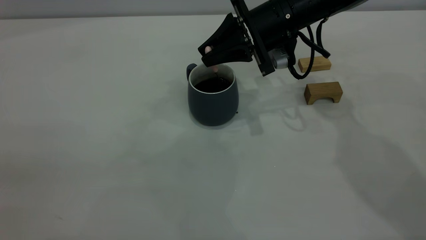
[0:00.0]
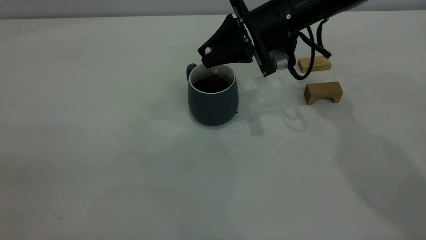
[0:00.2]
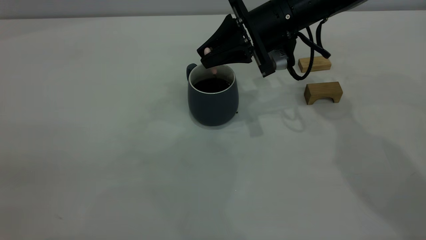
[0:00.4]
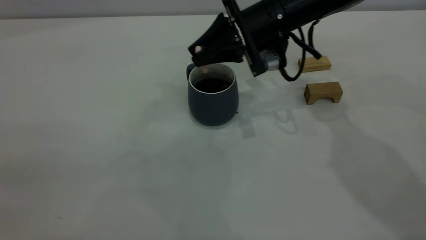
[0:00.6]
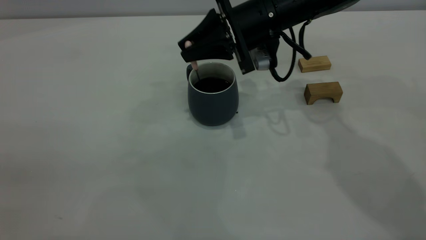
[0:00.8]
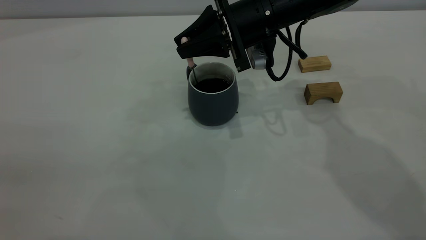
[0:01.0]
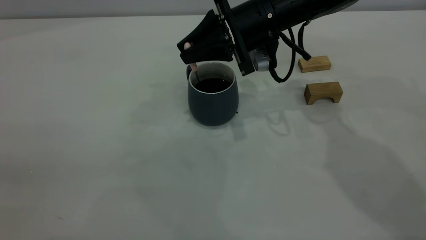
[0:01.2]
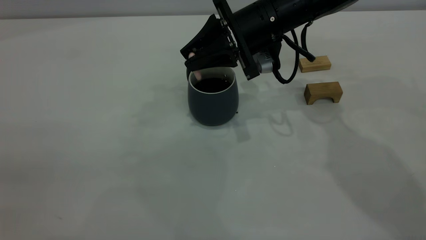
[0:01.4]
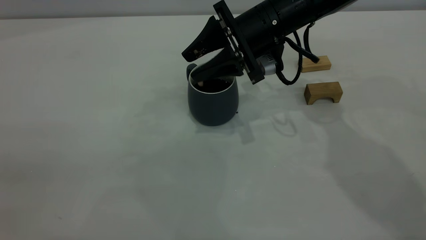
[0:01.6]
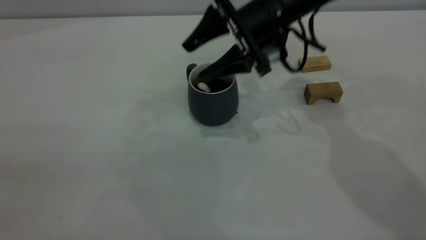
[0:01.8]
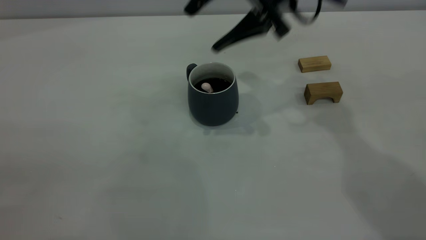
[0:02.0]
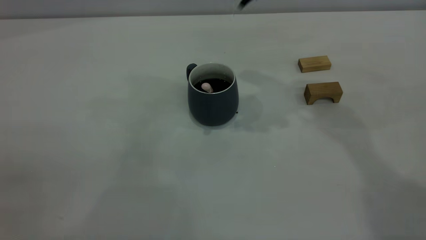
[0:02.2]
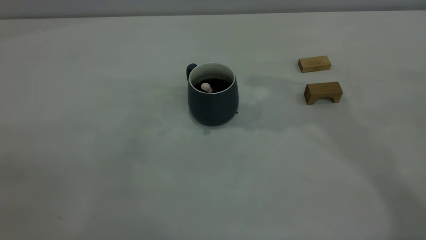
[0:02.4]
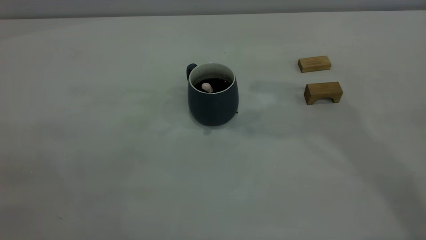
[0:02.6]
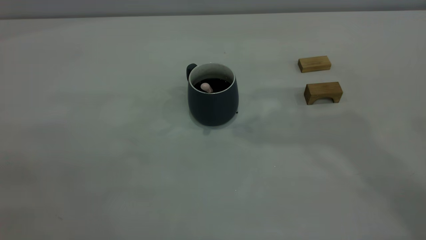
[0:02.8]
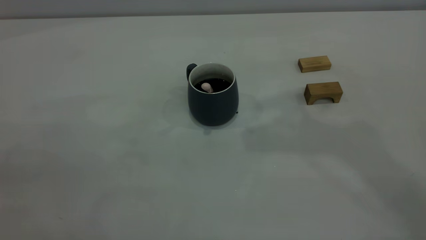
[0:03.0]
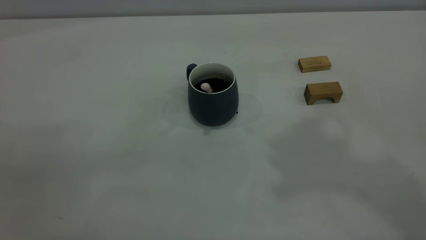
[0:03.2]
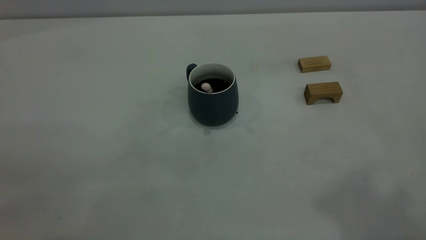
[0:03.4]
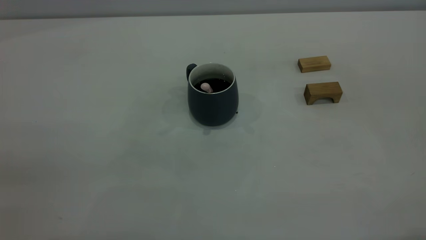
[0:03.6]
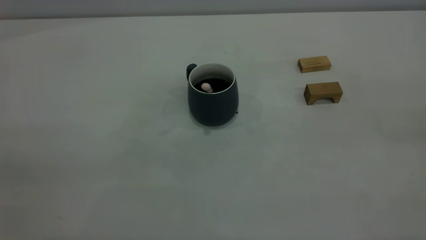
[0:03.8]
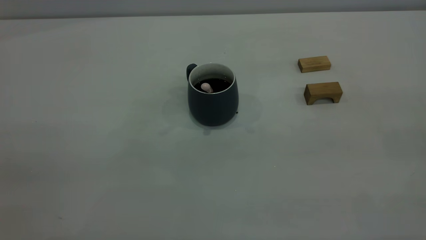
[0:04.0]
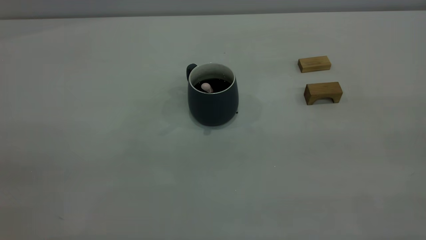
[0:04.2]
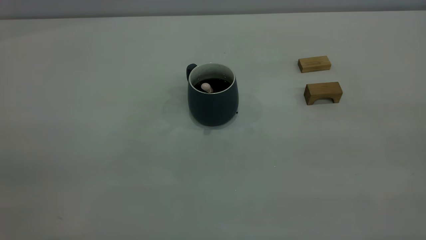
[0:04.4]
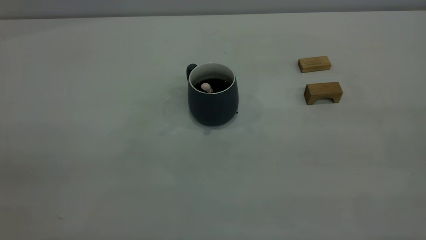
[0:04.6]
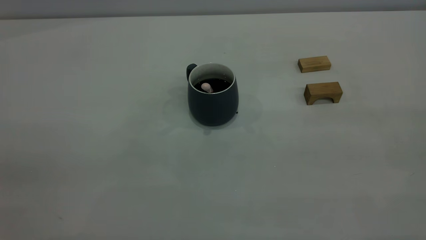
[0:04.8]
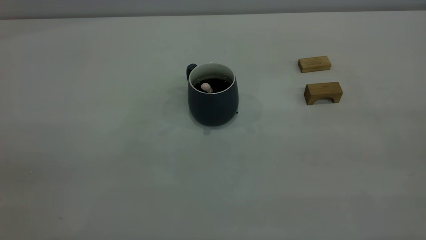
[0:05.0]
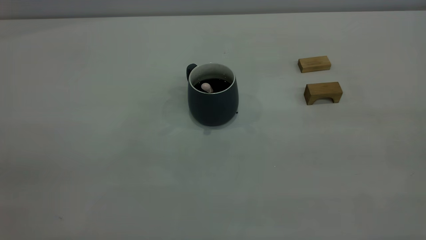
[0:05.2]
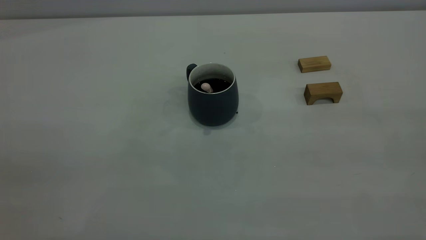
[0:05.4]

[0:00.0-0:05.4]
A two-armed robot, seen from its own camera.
0:00.0 to 0:01.4: The grippers stay close to where they were, moving slightly.
0:01.4 to 0:02.8: The right gripper goes about 35 cm upward, and opens, then closes again.

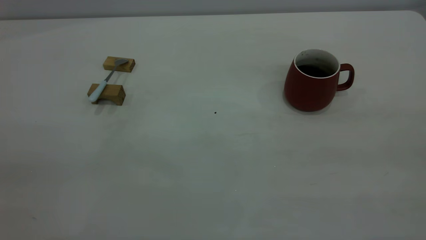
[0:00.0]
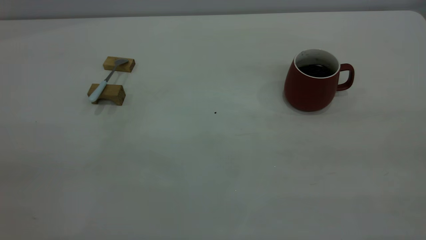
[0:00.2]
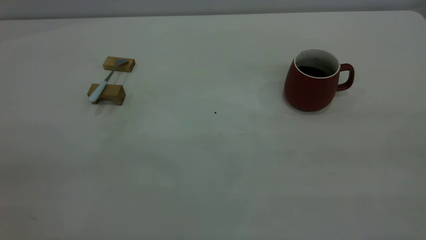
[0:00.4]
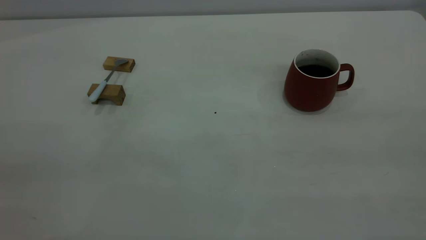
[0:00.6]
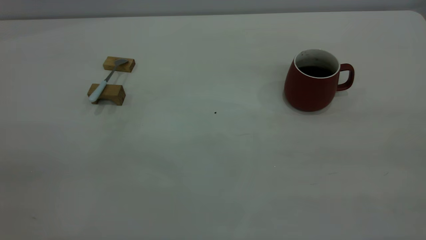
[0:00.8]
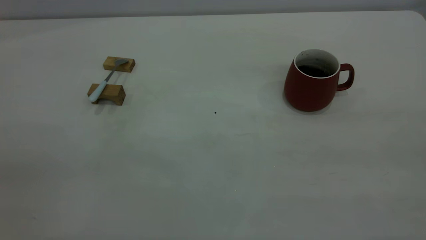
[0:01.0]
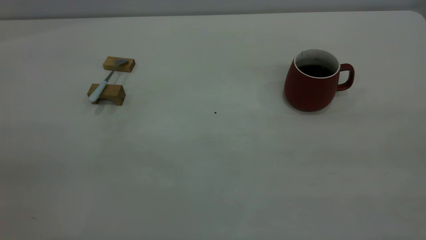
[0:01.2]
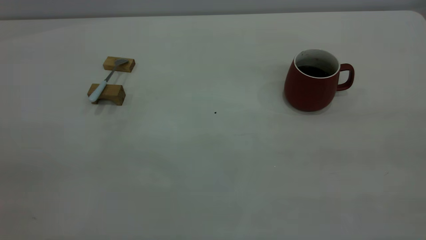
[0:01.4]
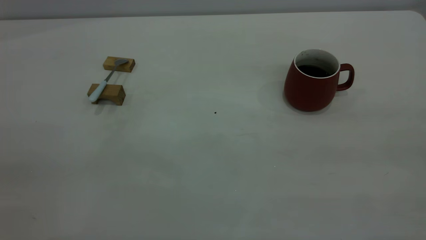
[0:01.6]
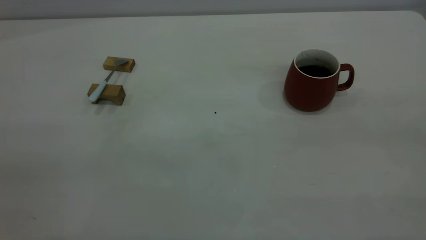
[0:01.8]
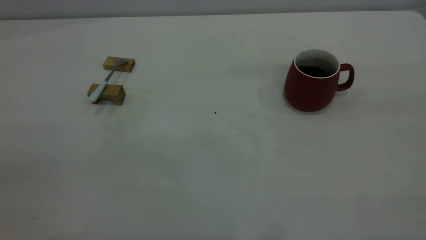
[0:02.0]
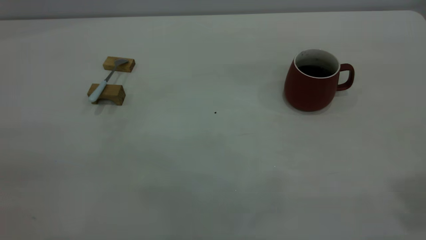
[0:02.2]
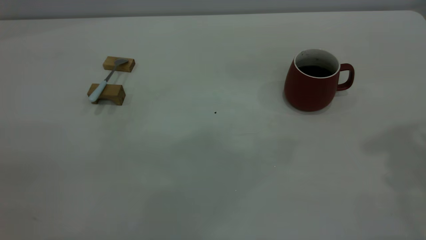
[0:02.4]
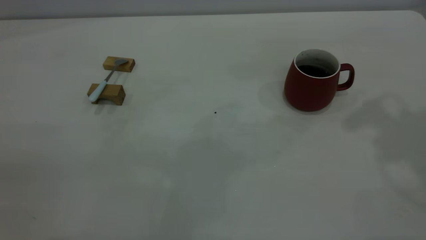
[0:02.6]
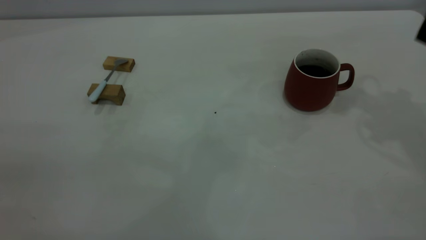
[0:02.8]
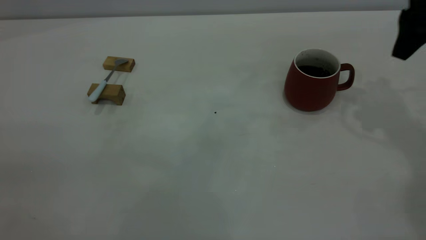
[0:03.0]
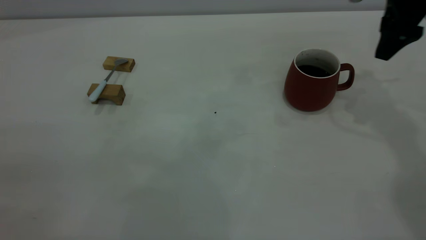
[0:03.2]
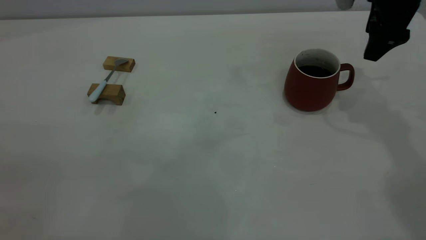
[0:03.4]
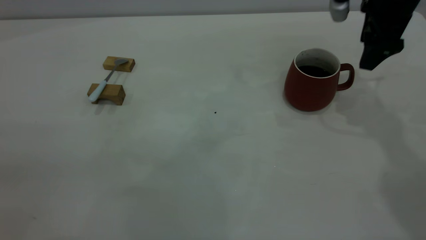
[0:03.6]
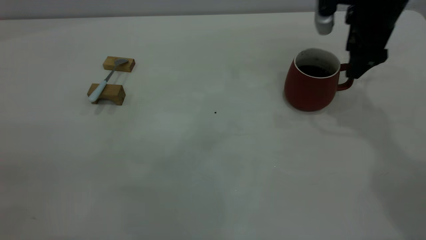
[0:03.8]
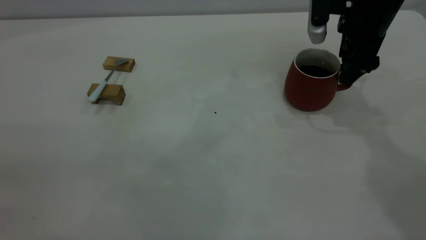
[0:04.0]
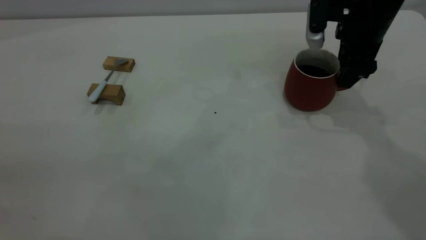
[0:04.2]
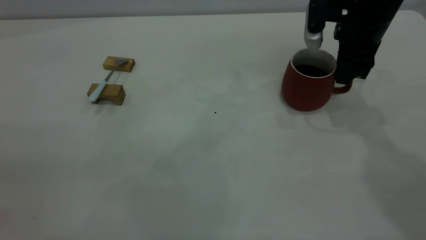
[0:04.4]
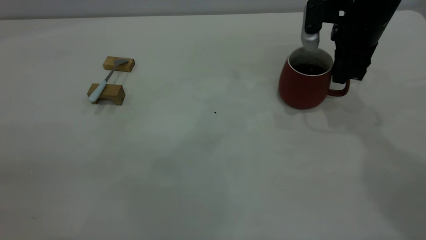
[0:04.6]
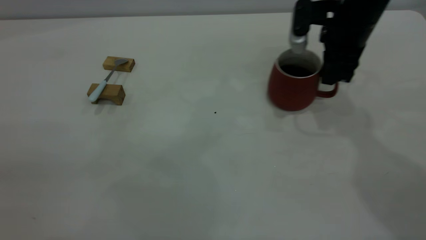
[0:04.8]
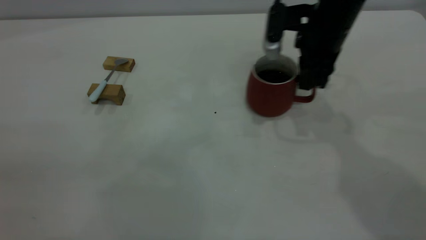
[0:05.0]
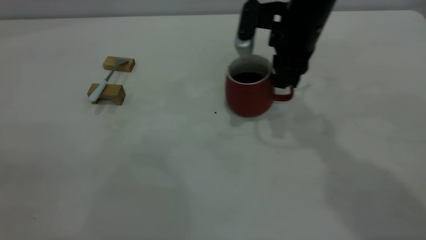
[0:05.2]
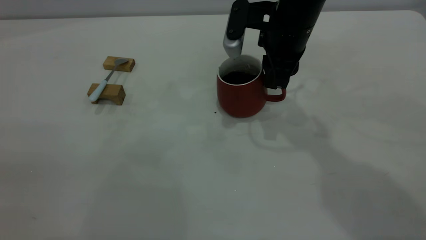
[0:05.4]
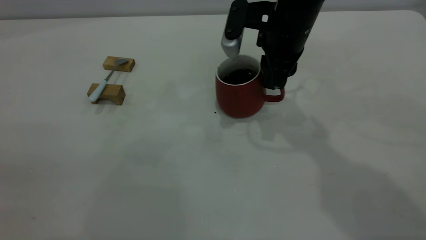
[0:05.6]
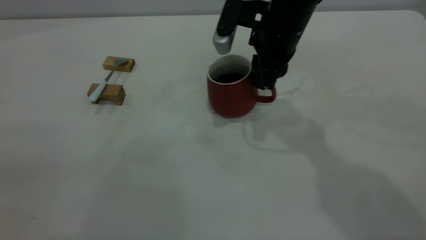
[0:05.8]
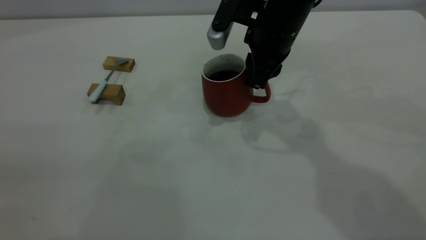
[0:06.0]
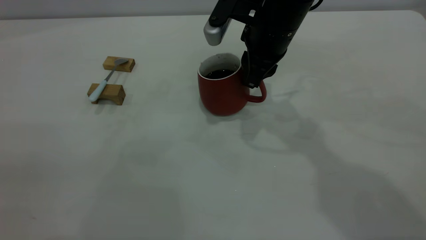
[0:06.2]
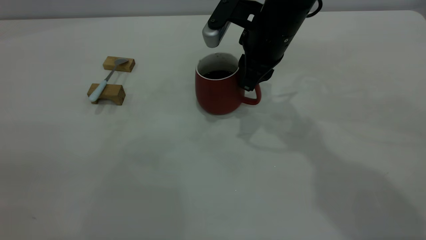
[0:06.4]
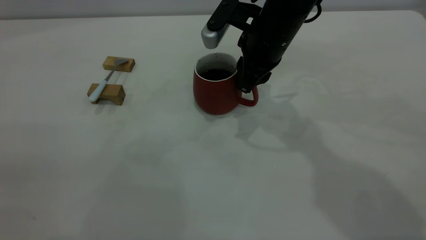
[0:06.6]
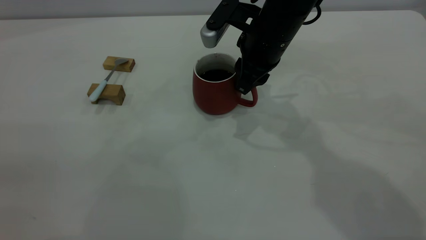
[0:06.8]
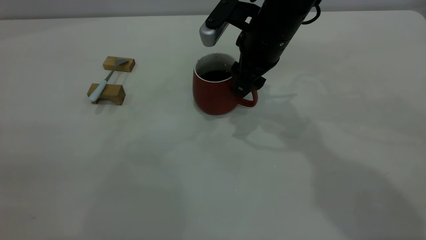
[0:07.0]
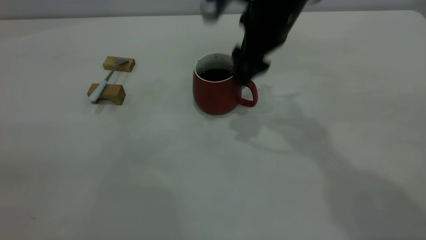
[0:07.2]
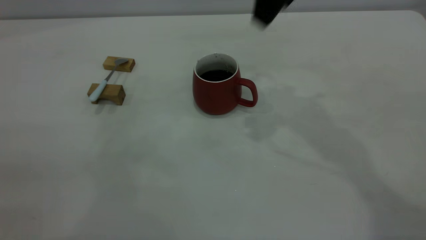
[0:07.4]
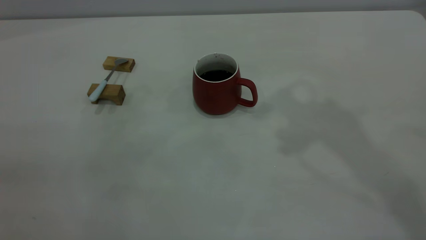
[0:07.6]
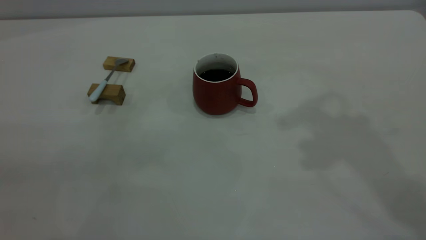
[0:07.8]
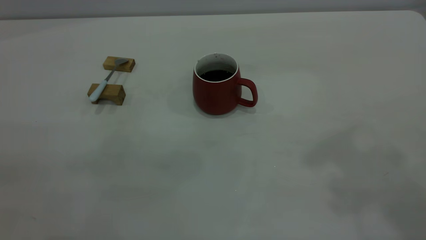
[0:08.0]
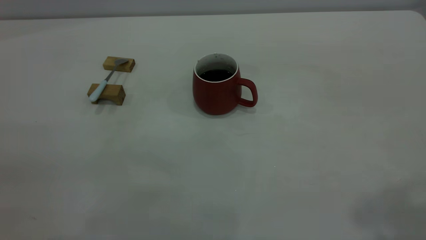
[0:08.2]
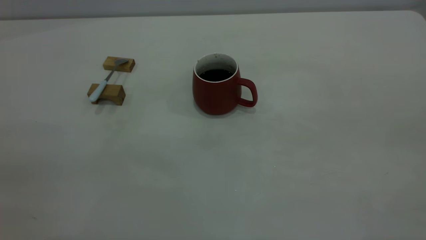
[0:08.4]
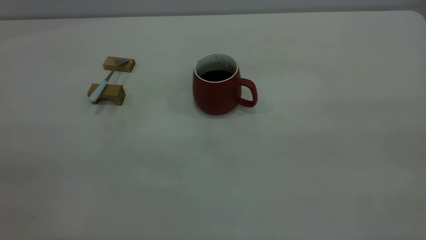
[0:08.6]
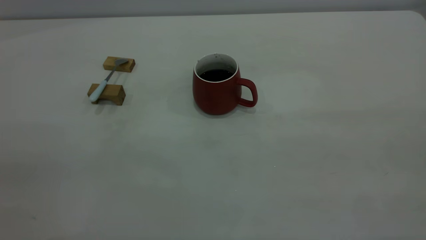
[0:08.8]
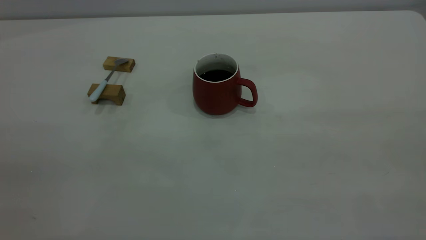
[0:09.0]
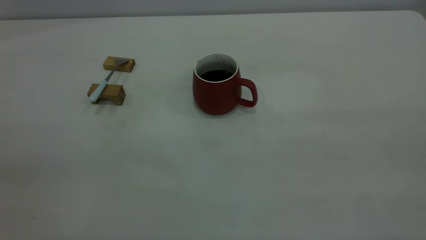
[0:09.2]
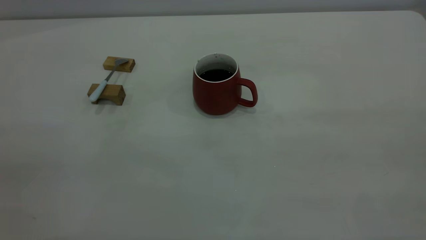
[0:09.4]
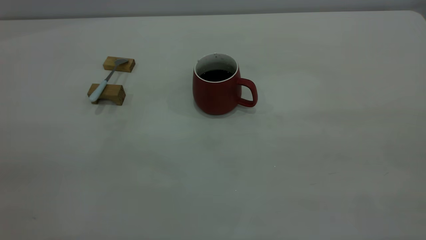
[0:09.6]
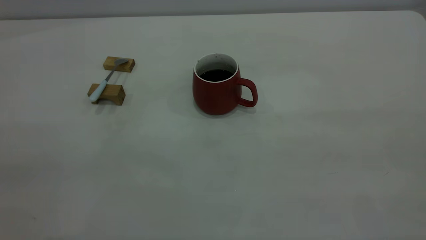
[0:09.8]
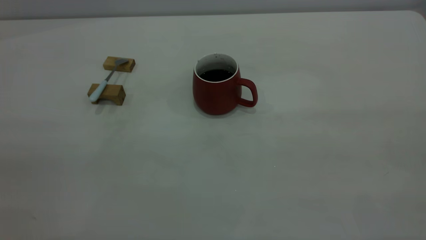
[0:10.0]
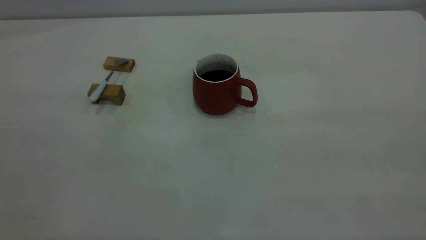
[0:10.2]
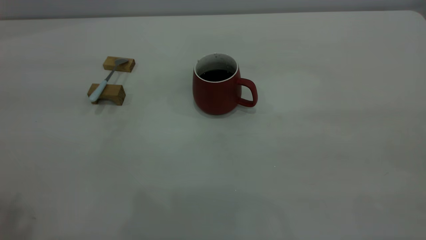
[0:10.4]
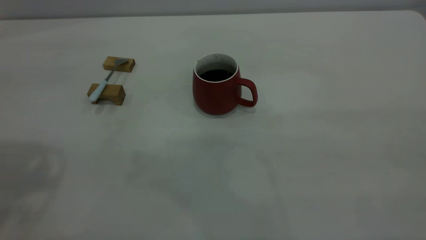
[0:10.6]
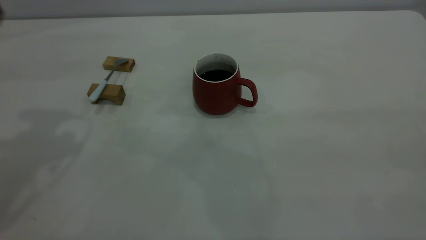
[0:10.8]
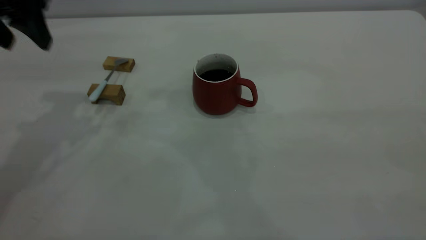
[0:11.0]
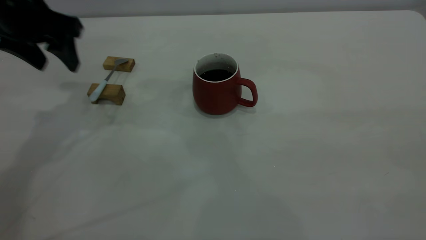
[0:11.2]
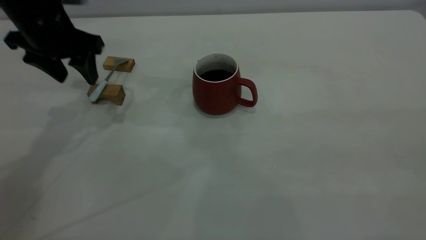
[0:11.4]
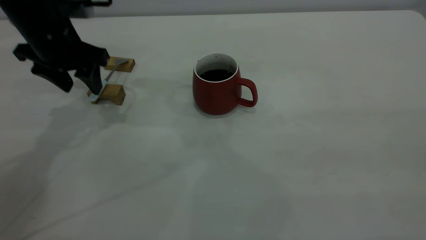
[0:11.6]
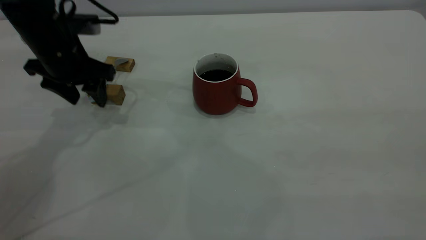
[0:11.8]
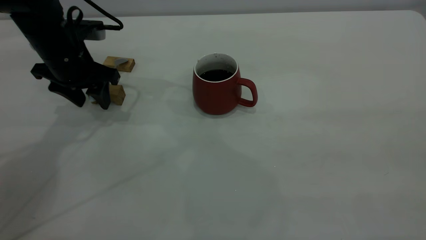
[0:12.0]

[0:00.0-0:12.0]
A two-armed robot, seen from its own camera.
Step, 0:00.0 to 0:07.2: Move the cup with coffee to the center of view.
0:00.0 to 0:01.6: Neither gripper changes place.
0:01.6 to 0:03.0: The right gripper is displaced forward by about 40 cm, and opens.
0:03.0 to 0:04.4: The right gripper travels downward and to the left by roughly 10 cm, and closes its fingers.
0:04.4 to 0:06.0: The right gripper shifts about 15 cm to the left.
0:06.0 to 0:07.6: The right gripper is displaced upward by approximately 25 cm, and opens up.
0:10.4 to 0:12.0: The left gripper shifts approximately 40 cm downward and forward.
